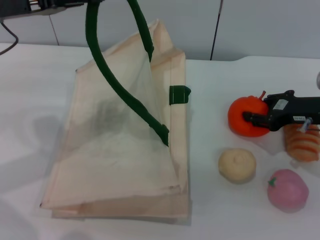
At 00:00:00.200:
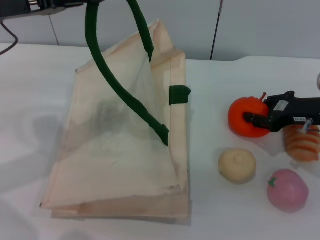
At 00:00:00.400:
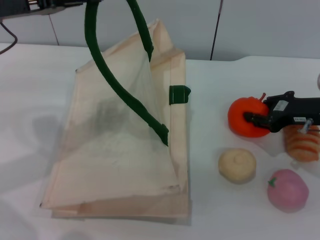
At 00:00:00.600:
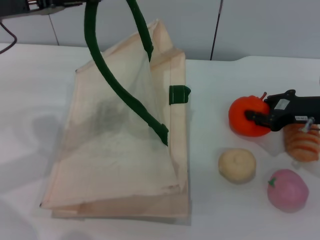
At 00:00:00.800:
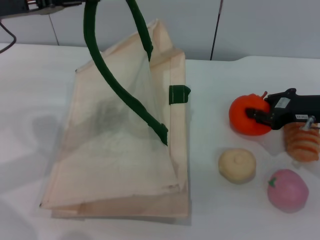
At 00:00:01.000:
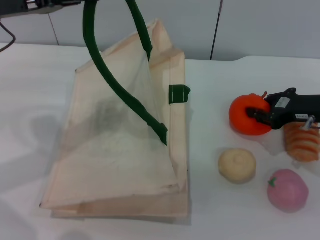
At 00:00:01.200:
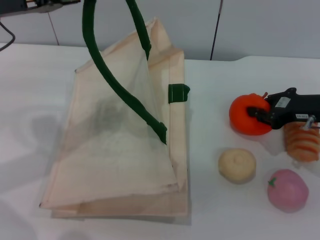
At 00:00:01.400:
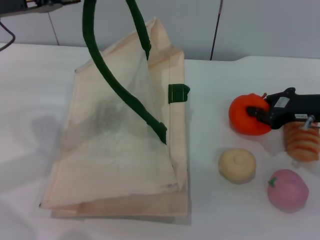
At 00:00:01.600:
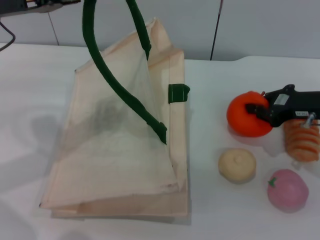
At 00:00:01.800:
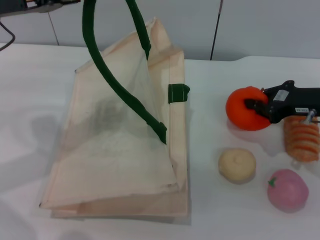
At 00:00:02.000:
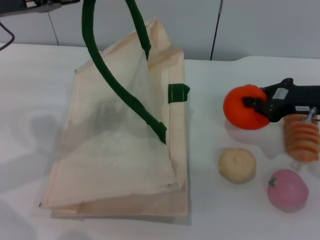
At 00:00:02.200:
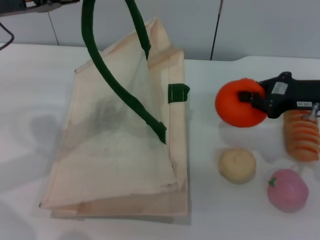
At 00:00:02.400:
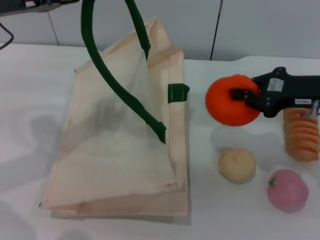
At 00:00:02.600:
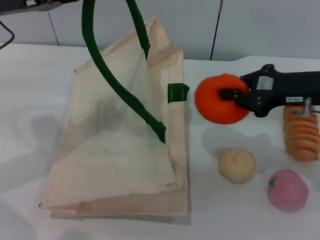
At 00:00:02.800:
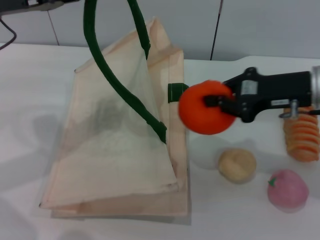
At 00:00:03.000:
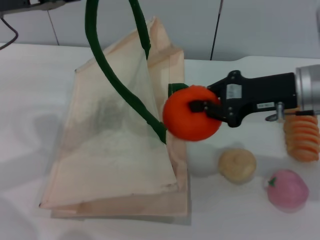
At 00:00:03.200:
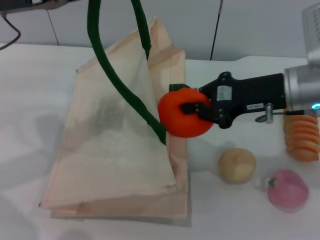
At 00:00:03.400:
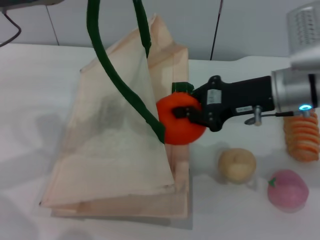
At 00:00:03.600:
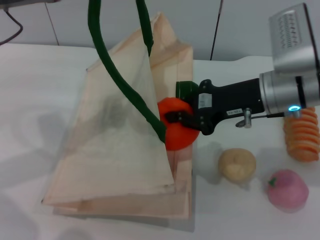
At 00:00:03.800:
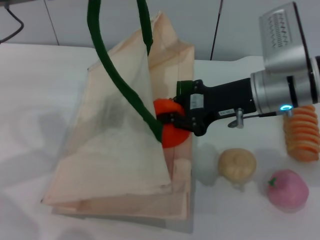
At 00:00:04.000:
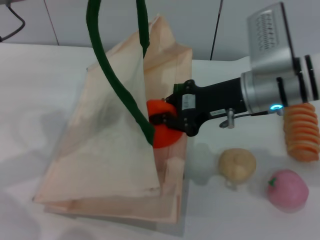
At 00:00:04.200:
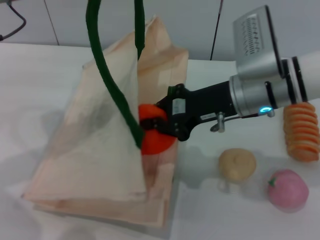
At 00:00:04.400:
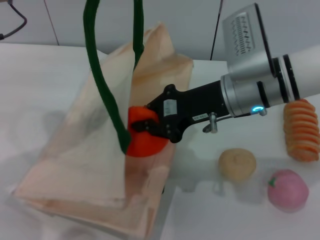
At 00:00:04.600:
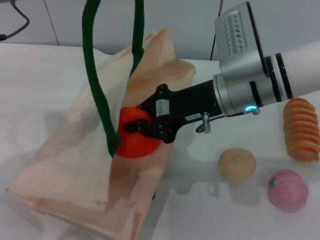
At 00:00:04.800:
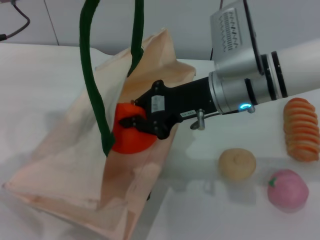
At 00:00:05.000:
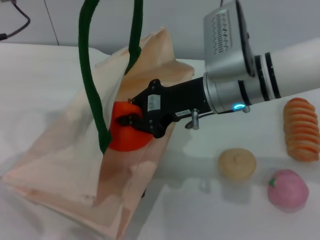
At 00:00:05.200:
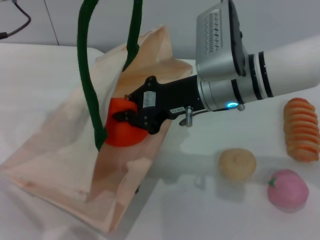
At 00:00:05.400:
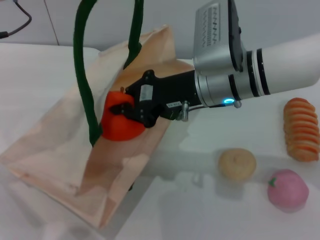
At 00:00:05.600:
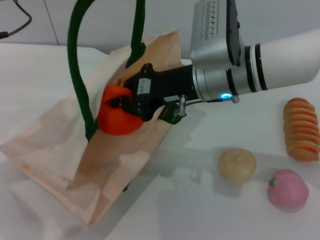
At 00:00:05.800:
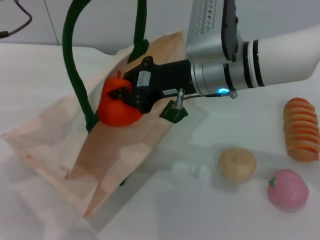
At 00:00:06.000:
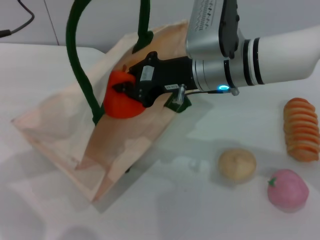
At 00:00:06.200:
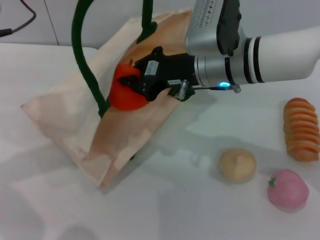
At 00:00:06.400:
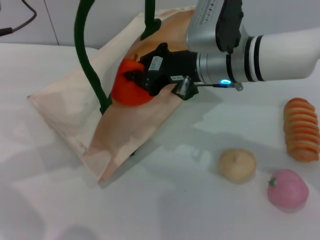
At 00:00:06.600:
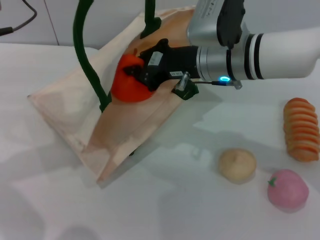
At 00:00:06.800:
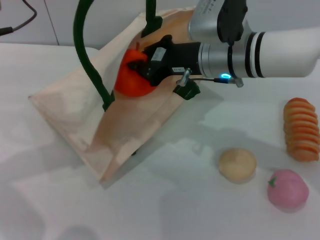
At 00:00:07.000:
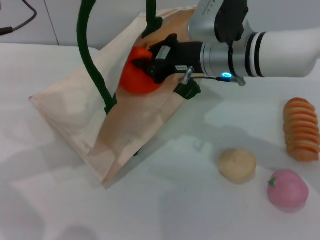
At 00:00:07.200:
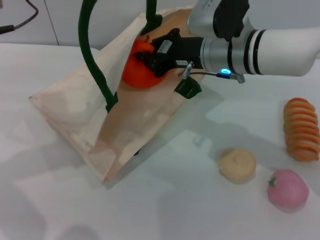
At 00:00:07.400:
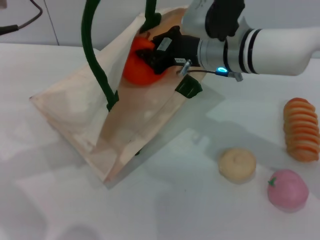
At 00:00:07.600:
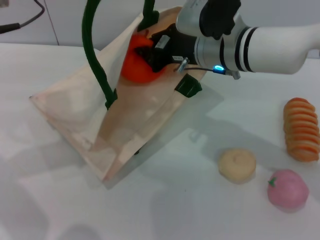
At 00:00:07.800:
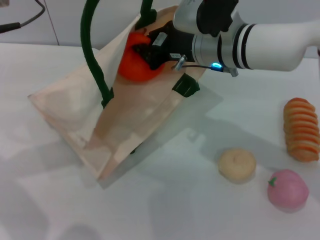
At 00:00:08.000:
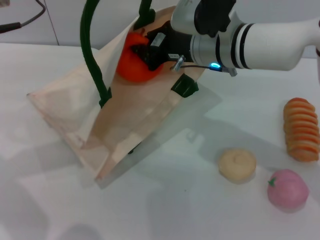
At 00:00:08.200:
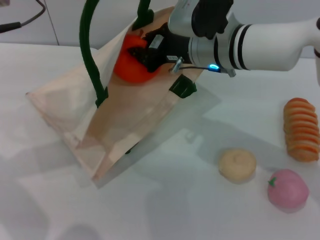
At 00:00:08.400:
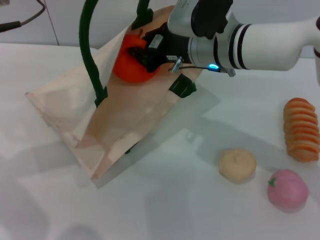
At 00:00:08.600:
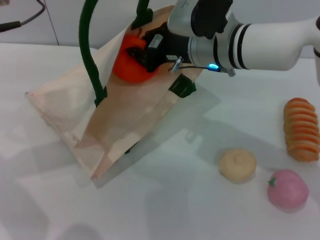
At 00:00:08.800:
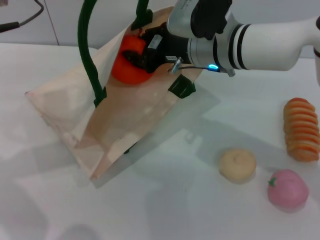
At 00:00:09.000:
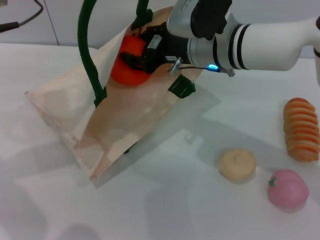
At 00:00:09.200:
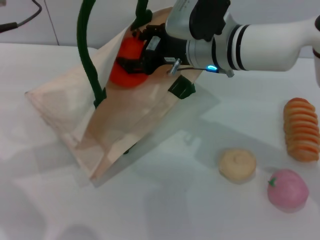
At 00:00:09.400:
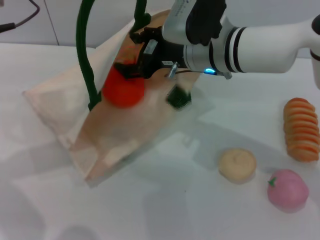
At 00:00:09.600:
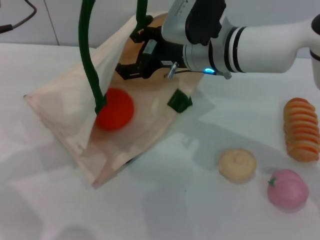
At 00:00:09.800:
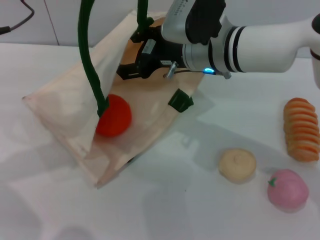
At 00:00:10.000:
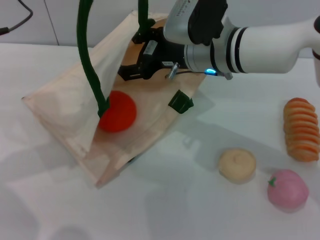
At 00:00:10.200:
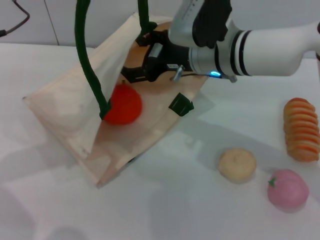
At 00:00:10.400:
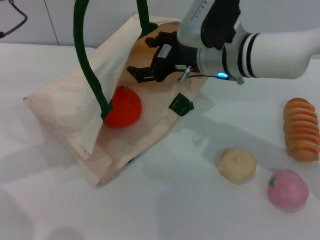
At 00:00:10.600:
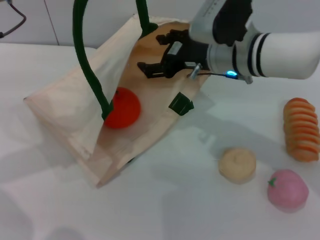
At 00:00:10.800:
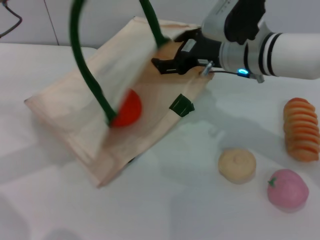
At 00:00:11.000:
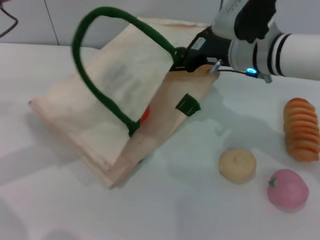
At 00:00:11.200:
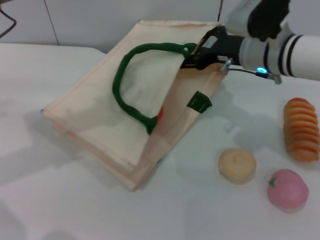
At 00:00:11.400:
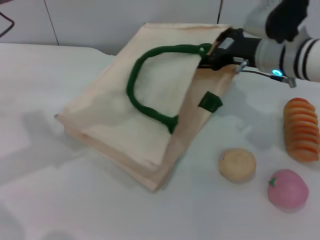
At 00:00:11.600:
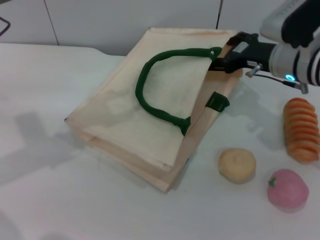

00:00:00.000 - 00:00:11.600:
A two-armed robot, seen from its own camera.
Task of the whole recording: pick up the orange from the table and place it in the white handbag.
Step, 00:00:00.000 - 00:00:02.200: Pick up the orange with the right gripper.
Step, 00:00:02.400 - 00:00:09.600: Place the orange into the woven bag with the right gripper.
00:00:00.000 - 00:00:01.400: The right gripper closes.
00:00:01.400 - 00:00:02.800: The right gripper shifts approximately 5 cm upward.
00:00:02.800 - 00:00:04.400: The right gripper shifts approximately 10 cm to the left.
00:00:07.200 - 00:00:08.800: The grippers make only small movements.
00:00:08.800 - 00:00:10.200: The right gripper opens.
00:00:10.200 - 00:00:11.600: The left gripper opens, while the right gripper travels to the right by about 10 cm.

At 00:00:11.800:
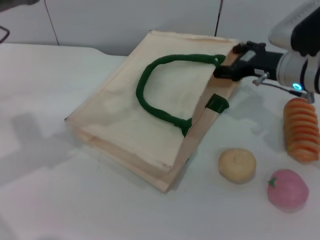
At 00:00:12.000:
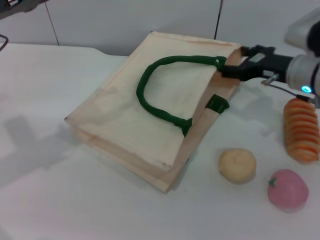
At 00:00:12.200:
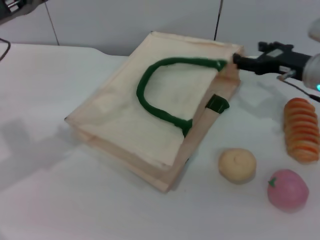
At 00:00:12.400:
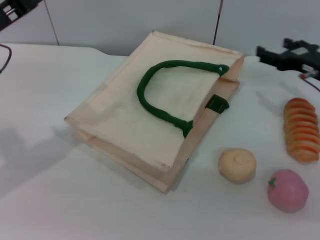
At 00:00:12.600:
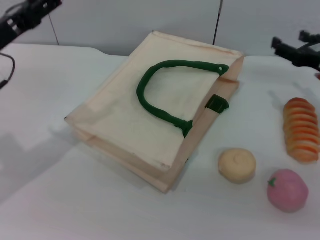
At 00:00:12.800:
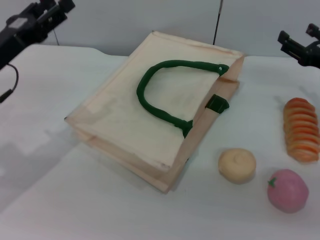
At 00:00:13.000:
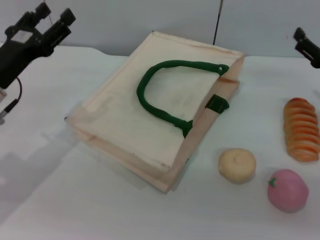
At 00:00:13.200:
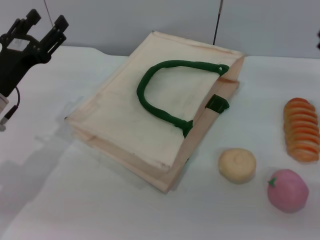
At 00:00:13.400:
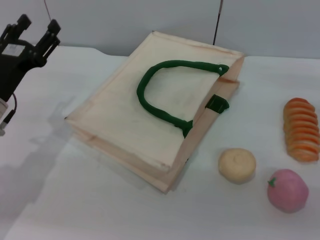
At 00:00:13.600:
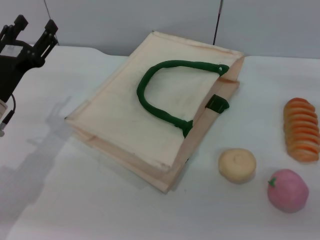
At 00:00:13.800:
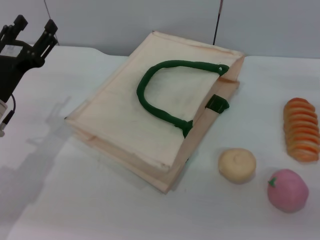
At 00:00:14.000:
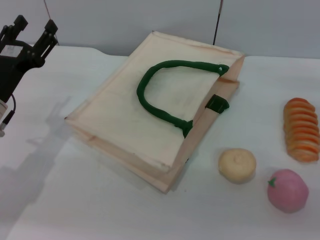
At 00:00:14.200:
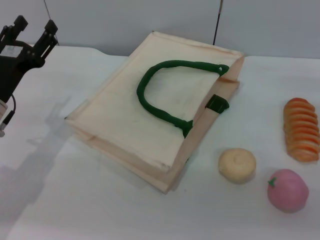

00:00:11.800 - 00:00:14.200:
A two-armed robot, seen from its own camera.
Task of the whole recording: pick up the orange from the table and place it in the white handbag.
00:00:11.800 - 00:00:13.000: The right gripper moves to the right and backward, some 10 cm. The left gripper goes some 10 cm downward.
00:00:13.000 - 00:00:14.200: There are only small adjustments of the grippers.
